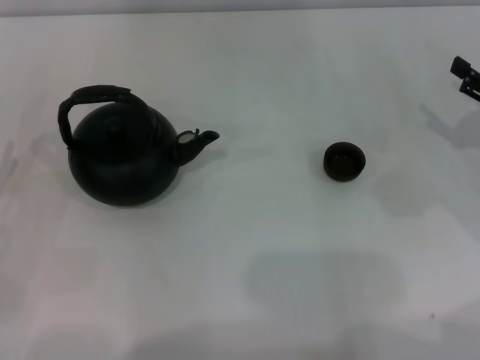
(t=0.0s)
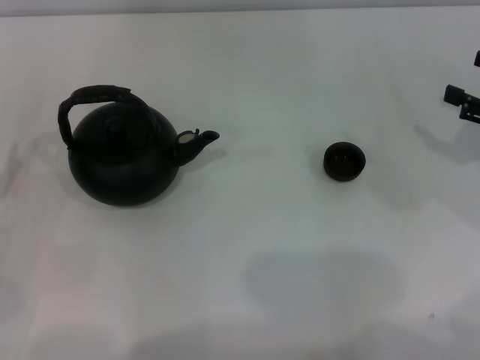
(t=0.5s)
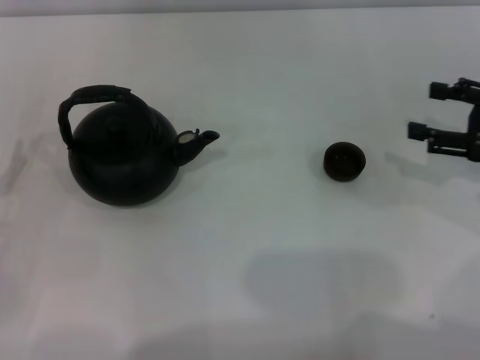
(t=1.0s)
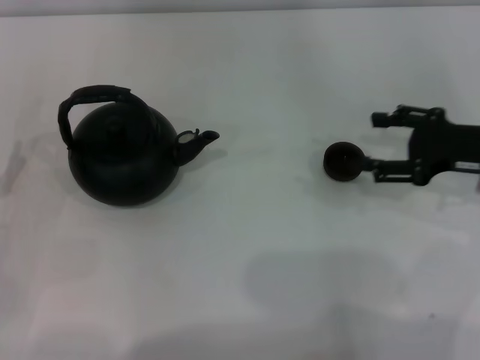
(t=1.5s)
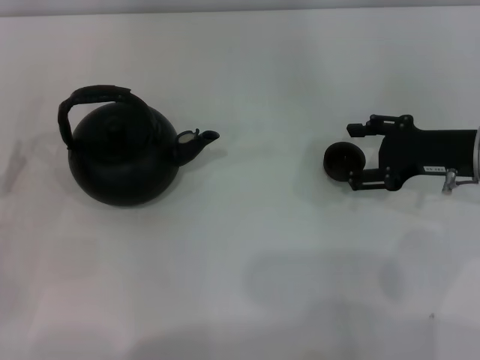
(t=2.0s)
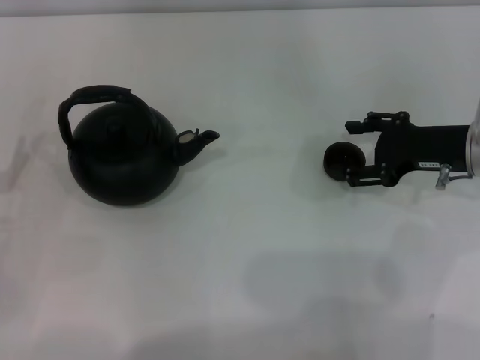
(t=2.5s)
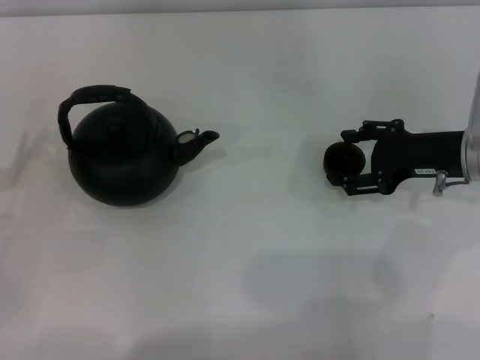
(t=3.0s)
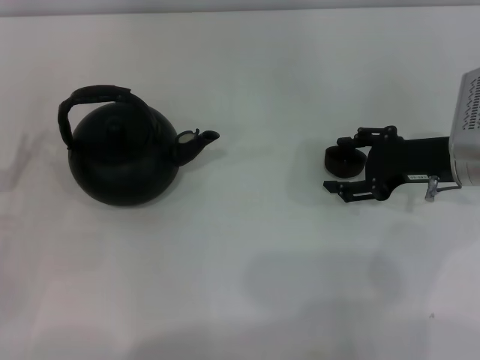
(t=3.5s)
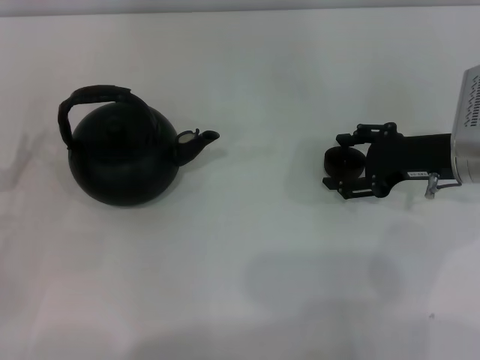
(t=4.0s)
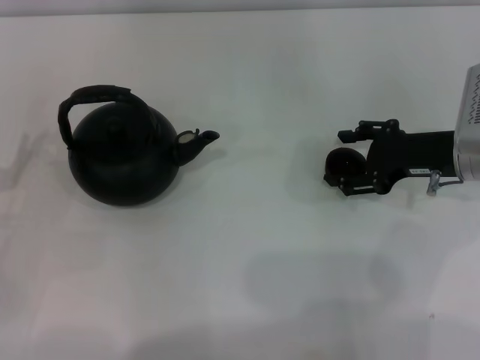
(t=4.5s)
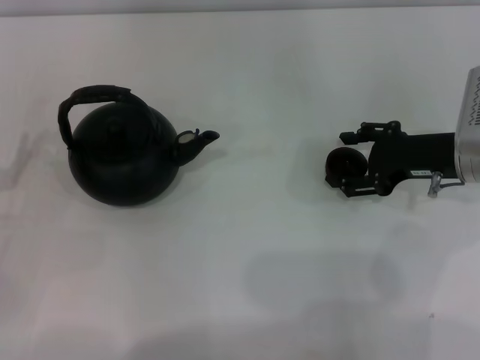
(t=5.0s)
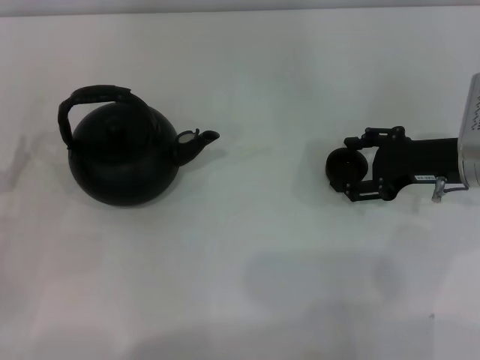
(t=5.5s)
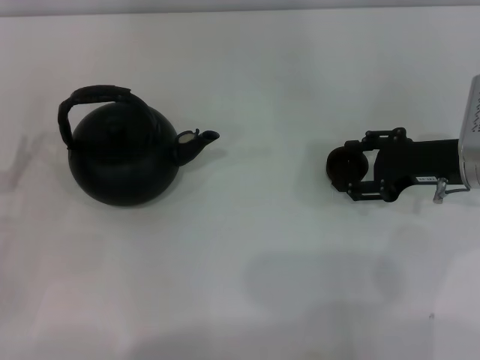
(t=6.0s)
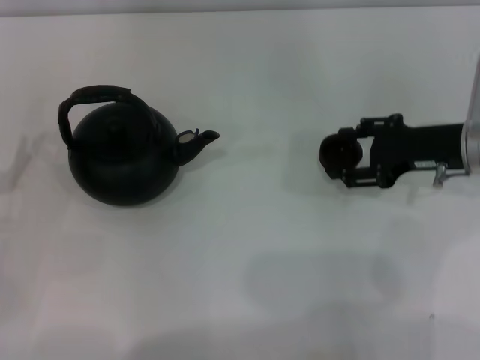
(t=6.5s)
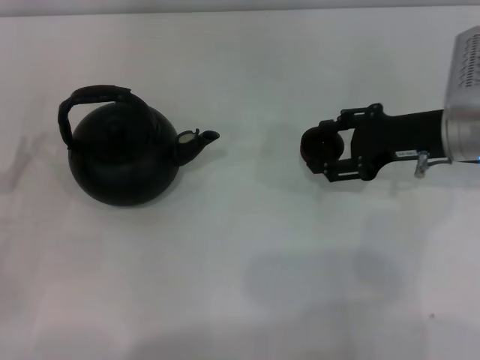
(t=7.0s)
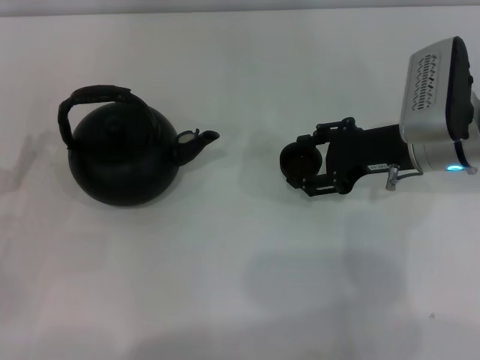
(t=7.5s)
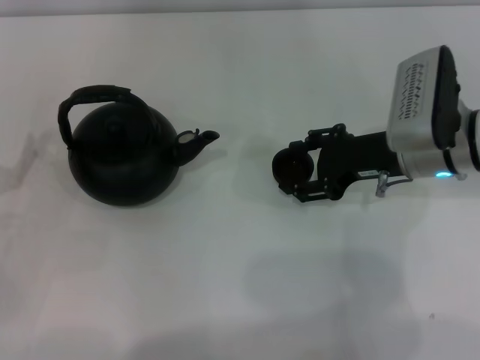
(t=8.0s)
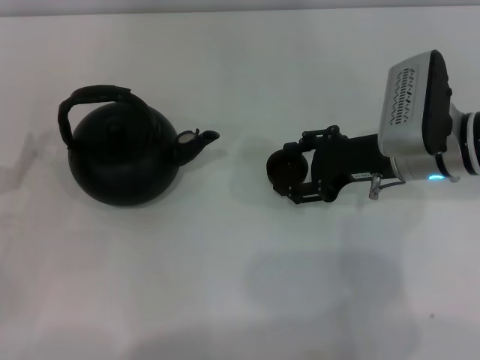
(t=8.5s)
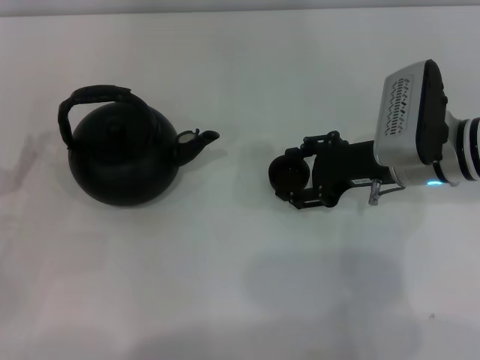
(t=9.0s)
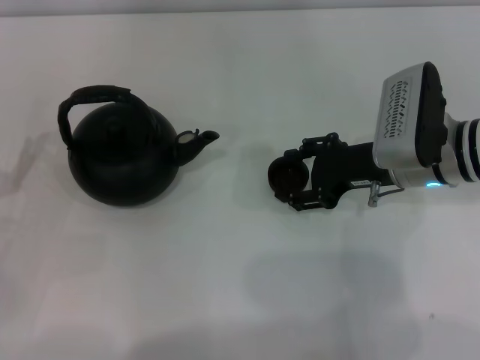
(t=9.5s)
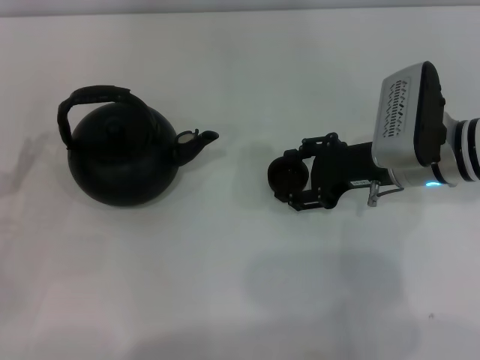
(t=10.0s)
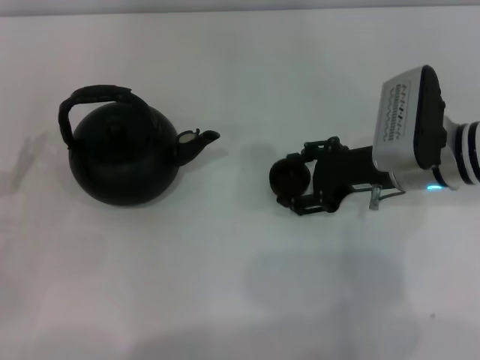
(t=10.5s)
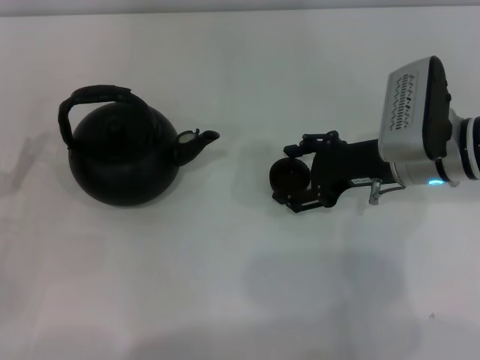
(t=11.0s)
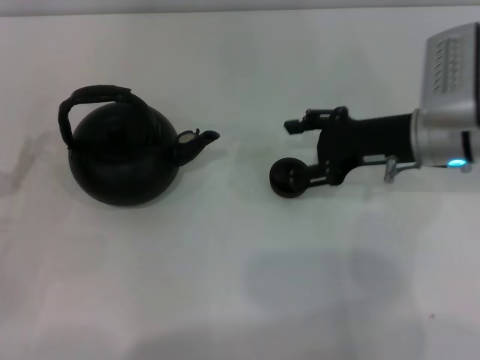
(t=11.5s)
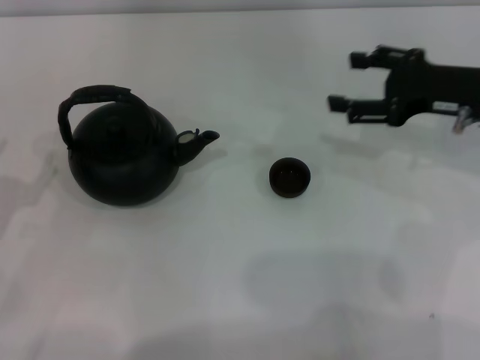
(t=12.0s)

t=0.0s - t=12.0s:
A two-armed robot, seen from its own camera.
Task of the whole recording: Grasp the handle of the teapot with one hand and pour tea into the teacup.
Step, t=0.0s - t=6.5s: Pick up the teacup with the right gripper.
Step, t=7.0s - t=11.0s: Place the teacup in the center of view with the right gripper.
t=0.0s - t=2.0s: The right gripper travels to the left by about 10 cm.
t=2.0s - t=4.0s: The grippers make only small movements.
t=4.0s - t=6.0s: The right gripper closes.
t=6.0s - t=8.0s: The right gripper shifts some 5 cm to the left.
t=8.0s - t=10.0s: The right gripper opens its fingers.
t=10.0s - t=12.0s: The right gripper travels to the right and upward by about 10 cm.

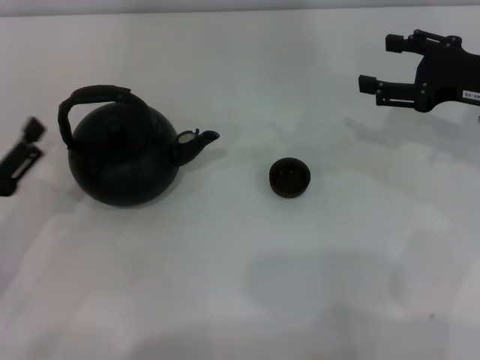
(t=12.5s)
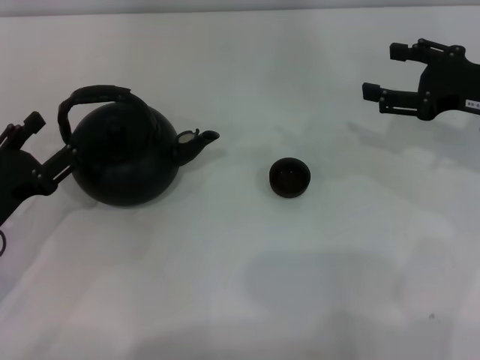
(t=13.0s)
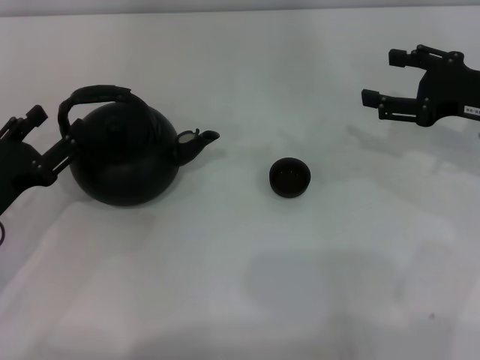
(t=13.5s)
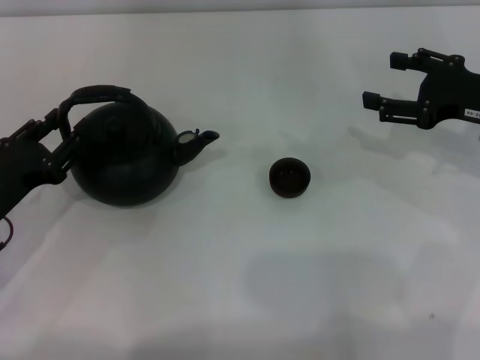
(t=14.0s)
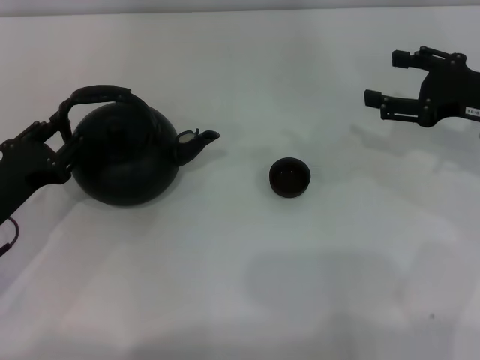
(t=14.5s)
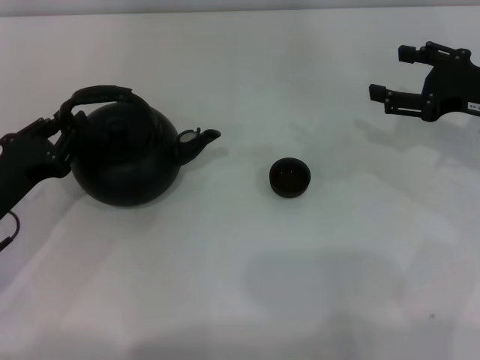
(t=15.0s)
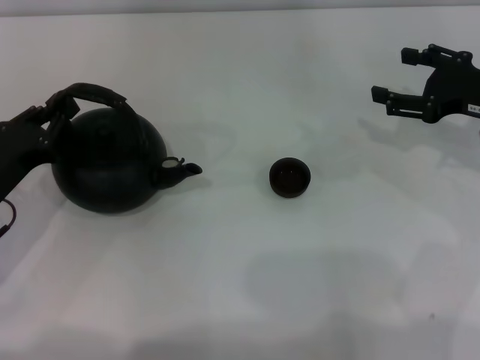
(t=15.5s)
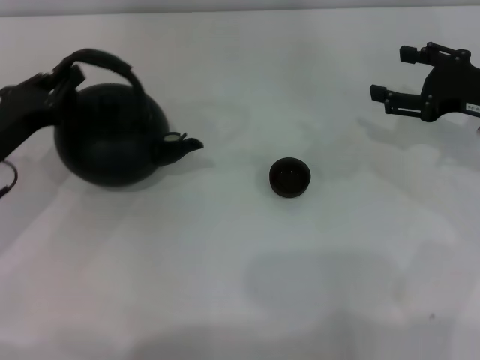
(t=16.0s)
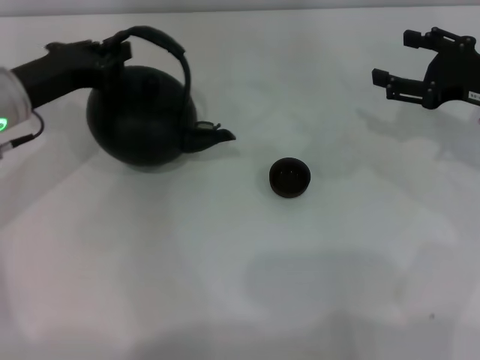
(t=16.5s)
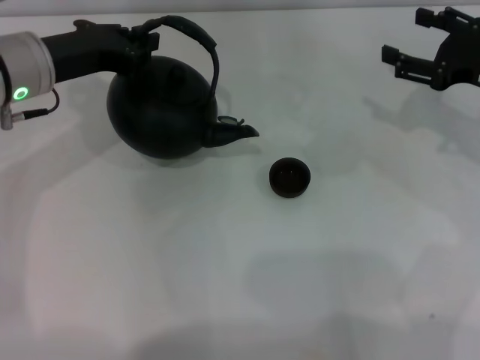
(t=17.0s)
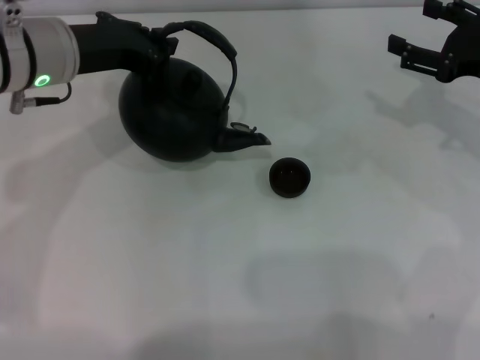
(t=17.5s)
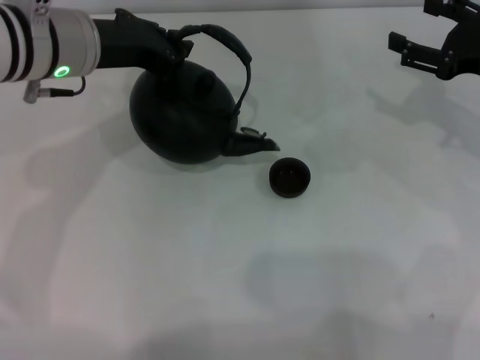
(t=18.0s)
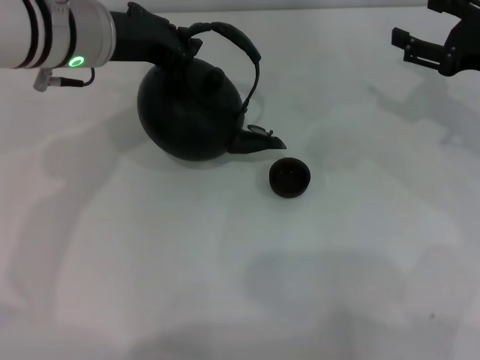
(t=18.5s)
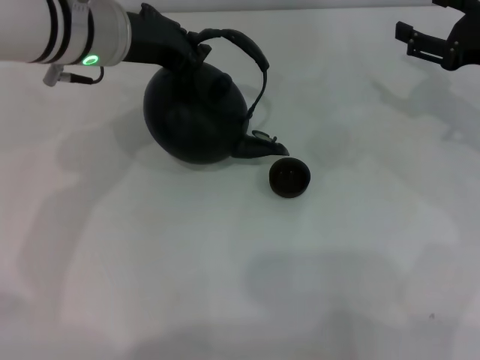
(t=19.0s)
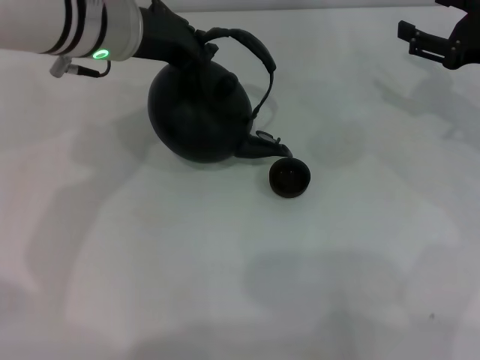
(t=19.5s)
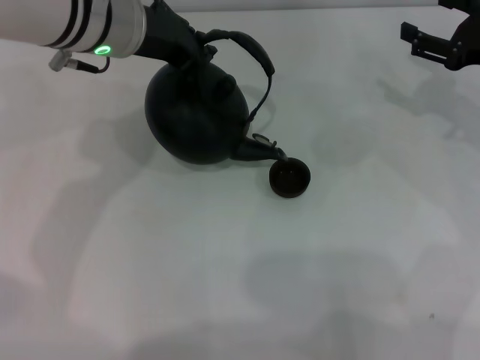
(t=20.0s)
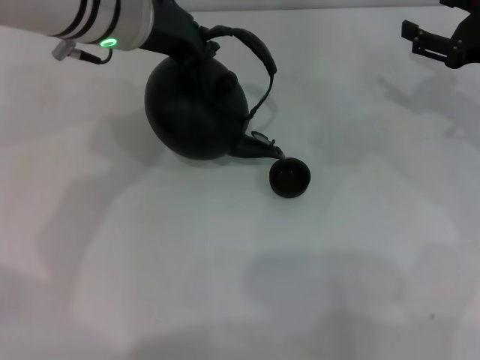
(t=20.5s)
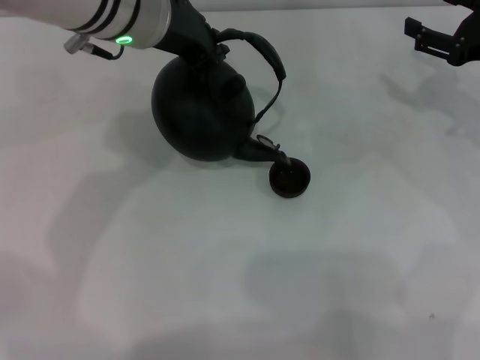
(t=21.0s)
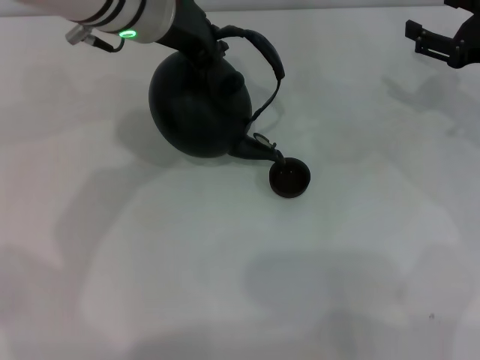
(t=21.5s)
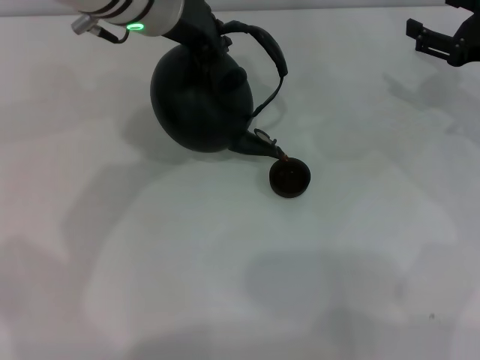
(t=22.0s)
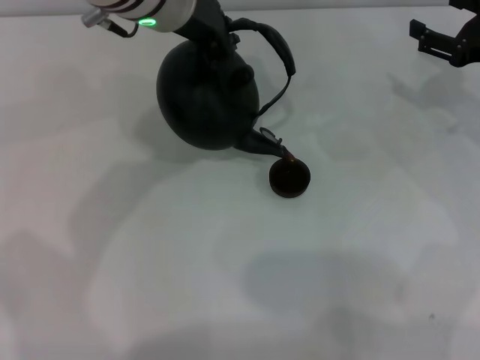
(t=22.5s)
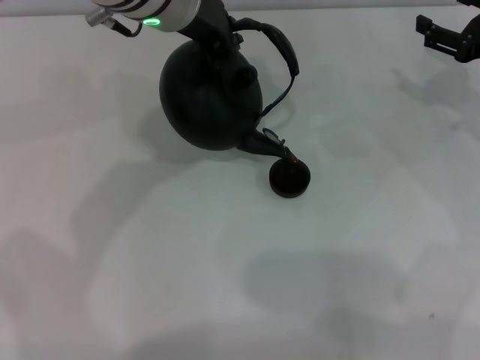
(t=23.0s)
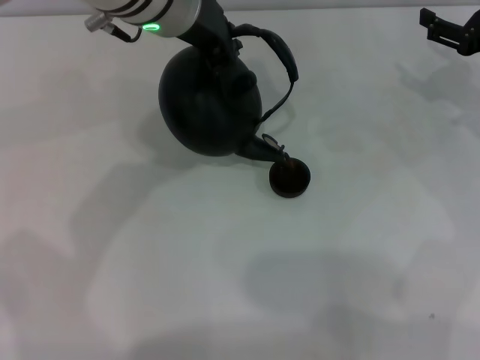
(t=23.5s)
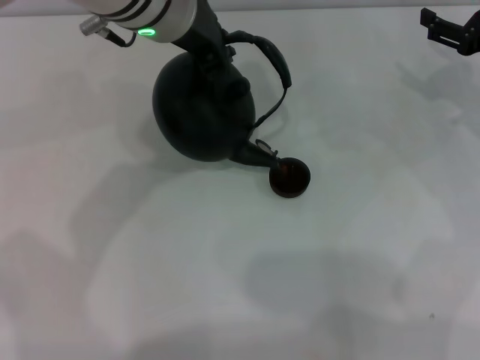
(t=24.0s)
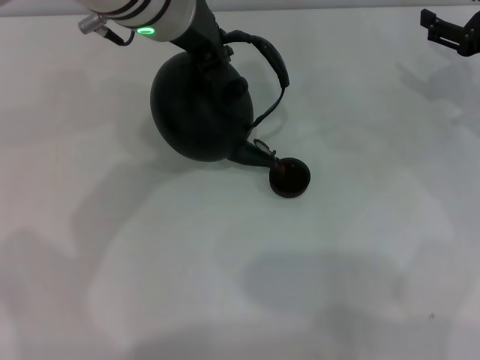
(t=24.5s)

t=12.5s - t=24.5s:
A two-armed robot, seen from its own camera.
Task of the whole recording: Grasp the handle of the teapot with one hand and pour tea into the teacup.
Step, t=12.5s - t=16.0s: Pick up the teapot with the left gripper.
t=12.5s - t=14.5s: The left gripper closes.
t=14.5s - t=16.5s: The left gripper is displaced forward and upward by approximately 15 cm, and closes its fingers.
t=16.5s - t=18.5s: The left gripper shifts some 10 cm to the right and upward.
t=18.5s - t=20.5s: The grippers make only small movements.
t=20.5s - t=22.5s: The grippers move only a little.
t=22.5s - t=24.5s: Neither gripper changes place.

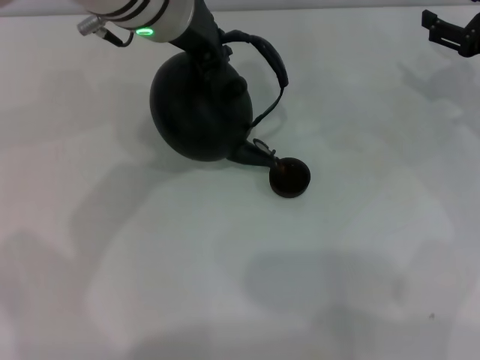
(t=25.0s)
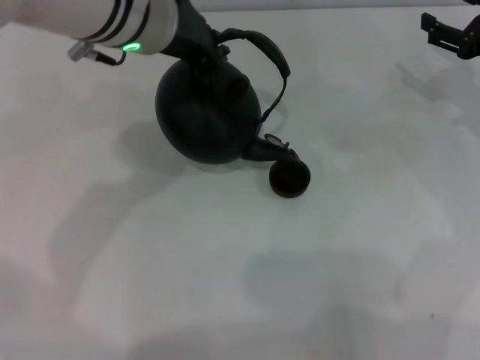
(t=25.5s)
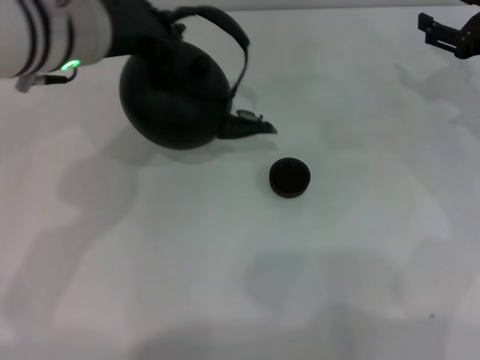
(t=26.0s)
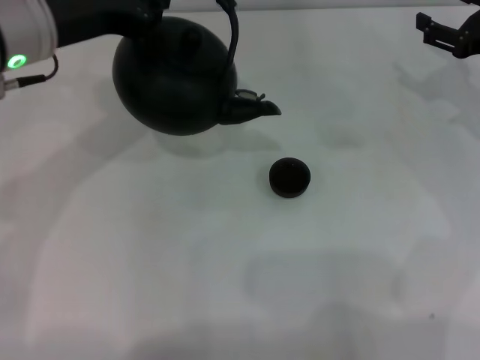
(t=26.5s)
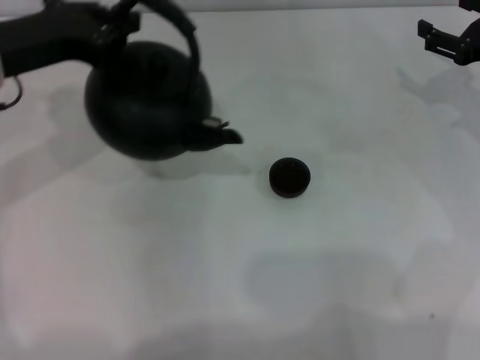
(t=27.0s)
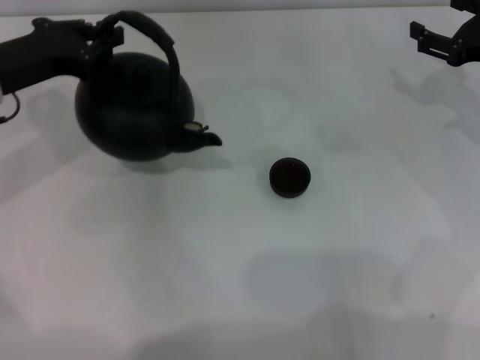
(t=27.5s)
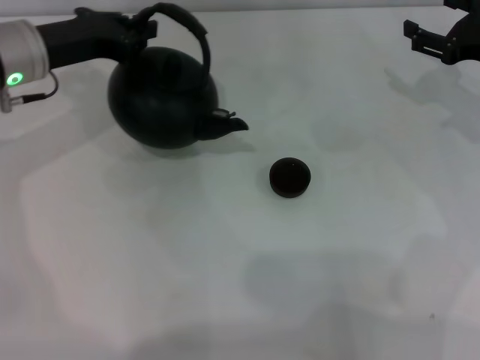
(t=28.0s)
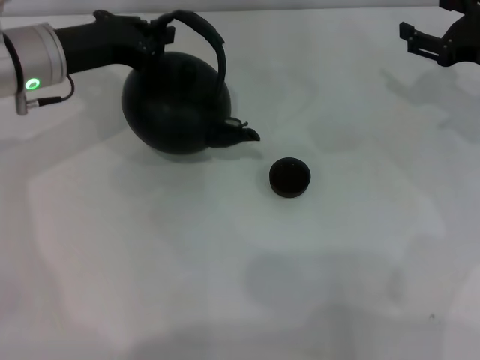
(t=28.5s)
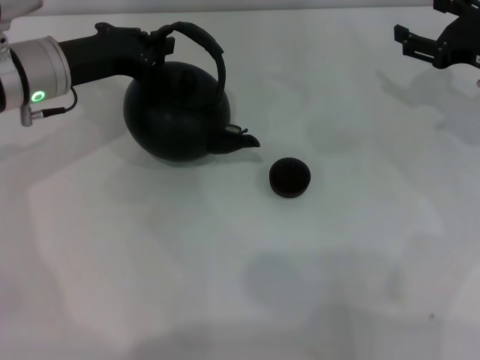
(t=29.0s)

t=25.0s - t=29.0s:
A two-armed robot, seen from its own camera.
Task of the whole recording: Grasp the handle of the teapot with one hand and pour tea into the teacup.
t=25.0s - t=27.0s: The left gripper travels to the left by some 15 cm.
t=27.0s - t=29.0s: The left gripper is displaced downward by roughly 5 cm.
